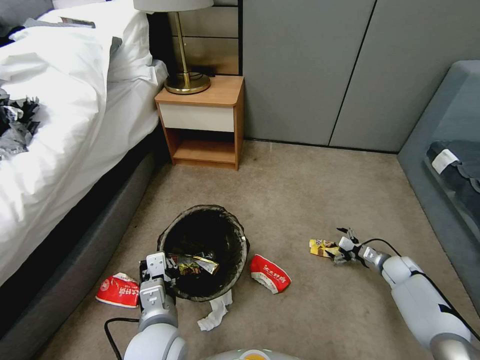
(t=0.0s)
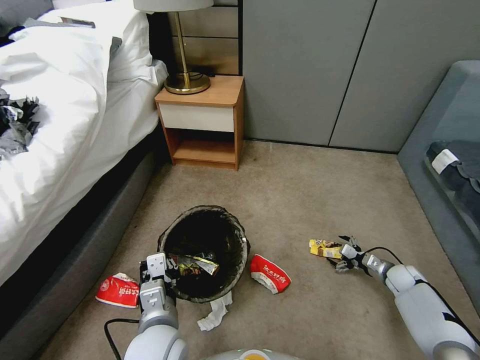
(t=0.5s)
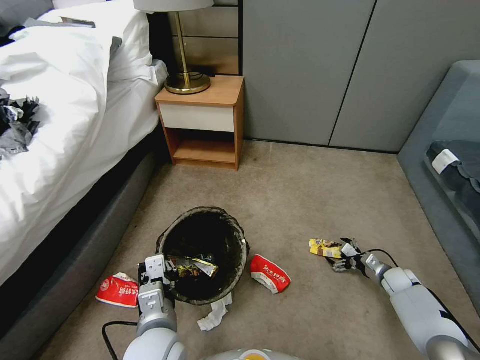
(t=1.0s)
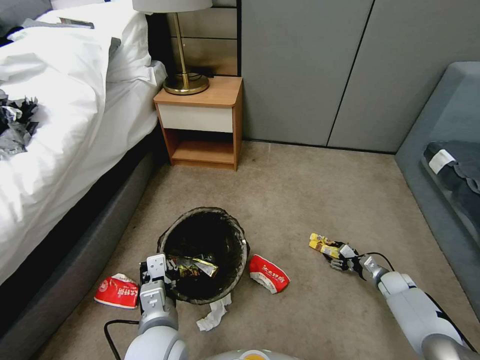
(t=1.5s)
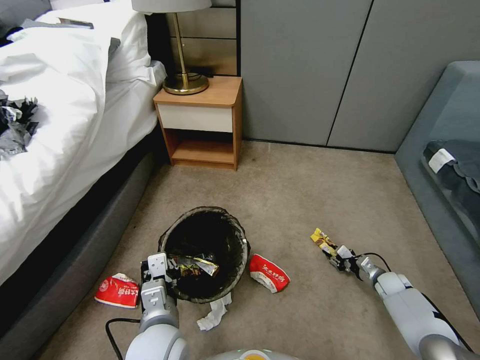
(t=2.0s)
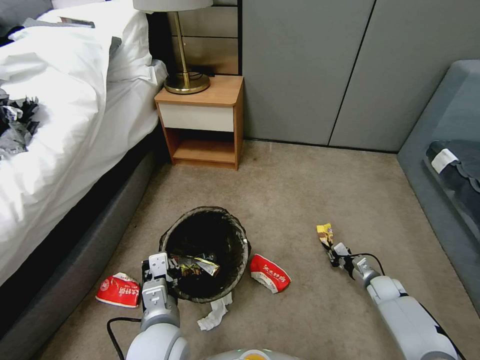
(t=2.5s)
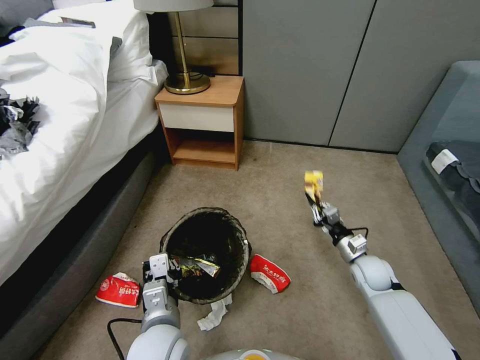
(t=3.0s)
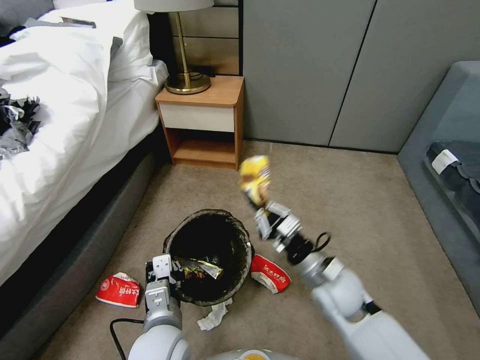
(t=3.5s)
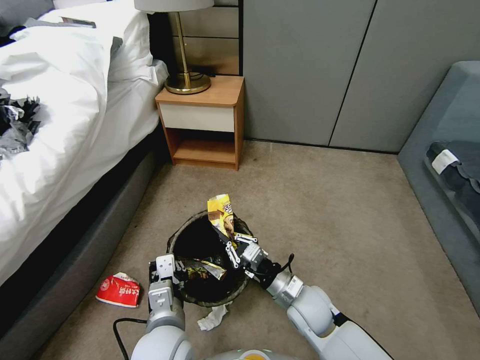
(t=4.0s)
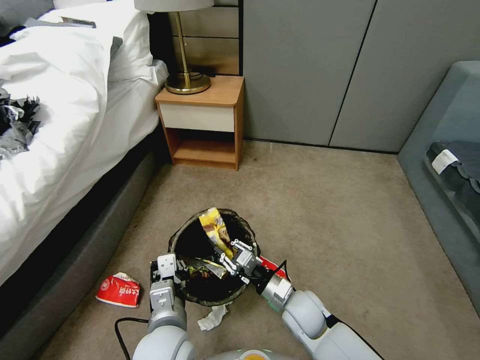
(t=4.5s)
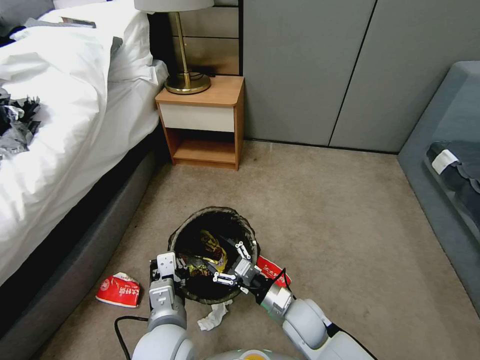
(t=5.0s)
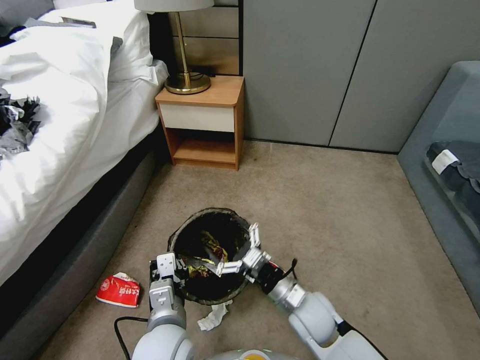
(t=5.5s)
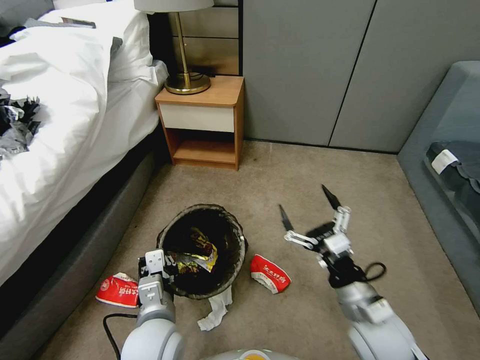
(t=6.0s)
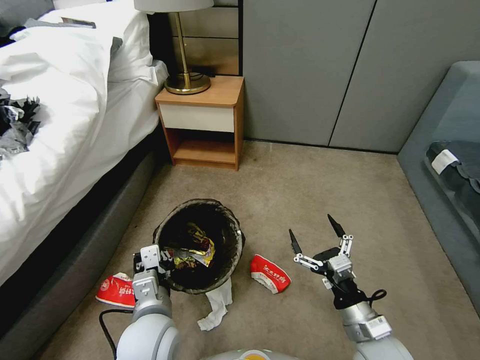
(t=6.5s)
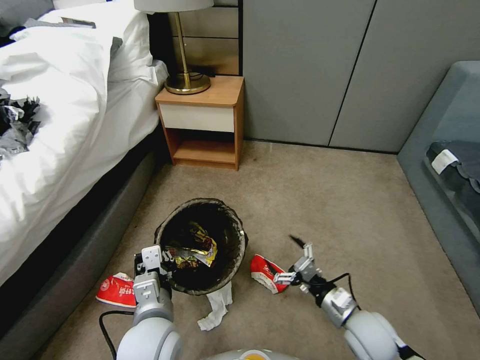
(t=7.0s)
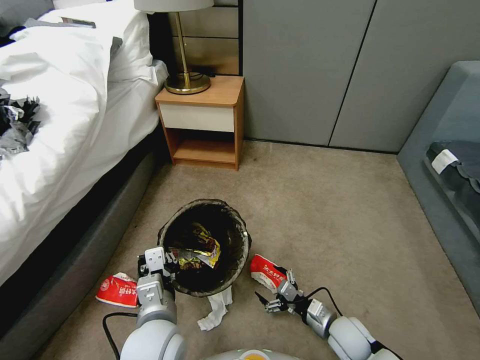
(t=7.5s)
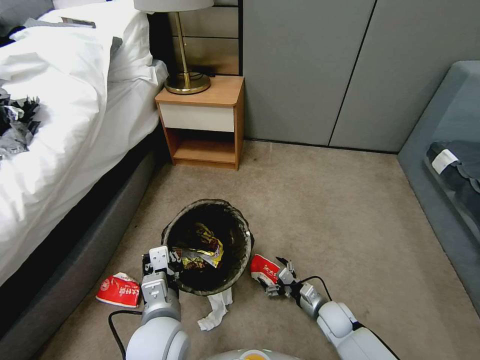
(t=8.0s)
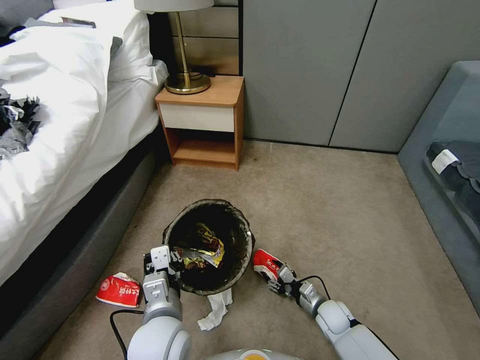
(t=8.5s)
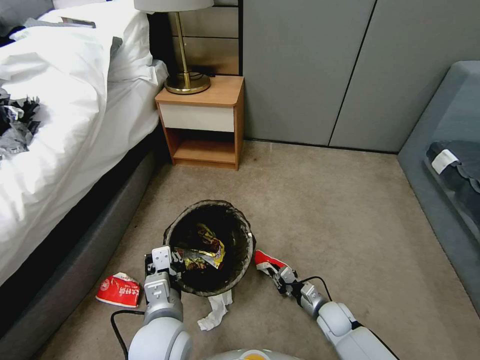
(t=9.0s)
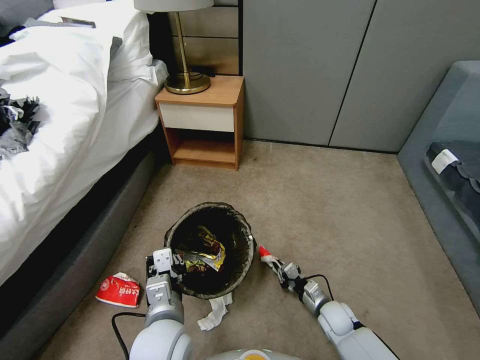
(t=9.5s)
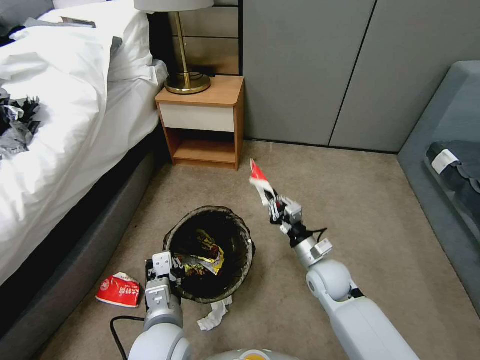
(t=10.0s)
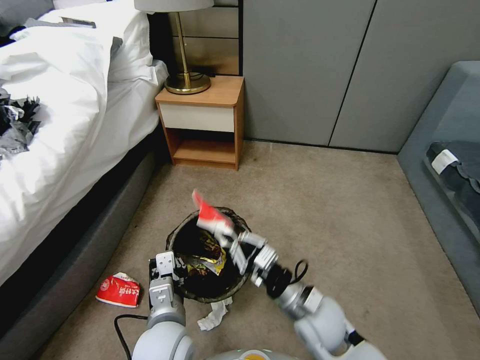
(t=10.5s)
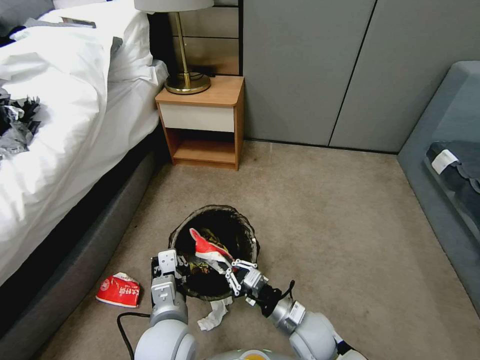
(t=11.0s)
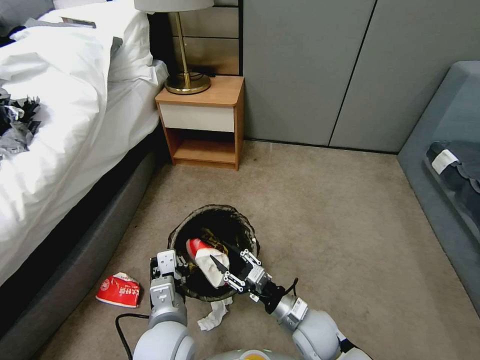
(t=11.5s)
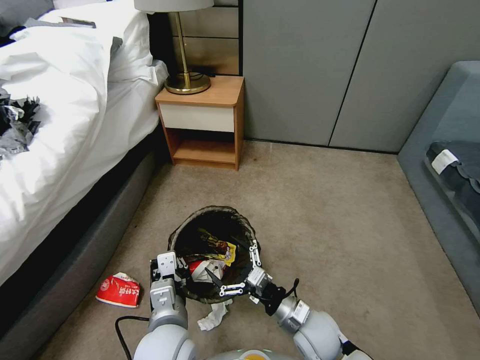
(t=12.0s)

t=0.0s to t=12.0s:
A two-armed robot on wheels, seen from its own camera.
Task of the whole recording: Pick up the trash bin, then pick up the garbage from the floor and place it into the trash bin.
t=0.0s to t=2.0s: The right gripper shifts about 5 cm downward, and closes.
t=2.0s to t=4.0s: The right gripper heads to the left and upward, covering approximately 35 cm.
t=4.0s to t=6.0s: The right gripper goes some 15 cm to the right, upward and backward, and opens its fingers.
t=6.0s to t=8.0s: The right gripper goes roughly 25 cm downward.
t=8.0s to t=10.0s: The right gripper travels upward and forward by about 15 cm, and closes up.
t=10.0s to t=12.0s: The right gripper travels backward and to the left by some 10 cm, and opens.

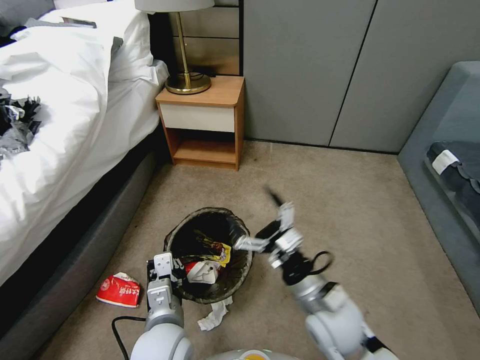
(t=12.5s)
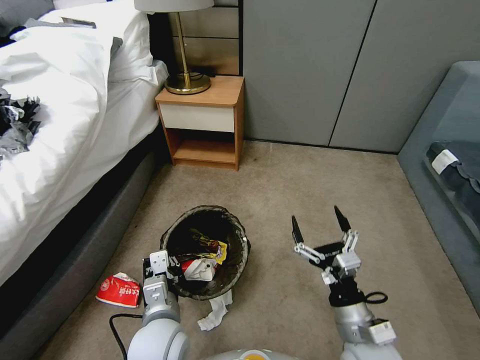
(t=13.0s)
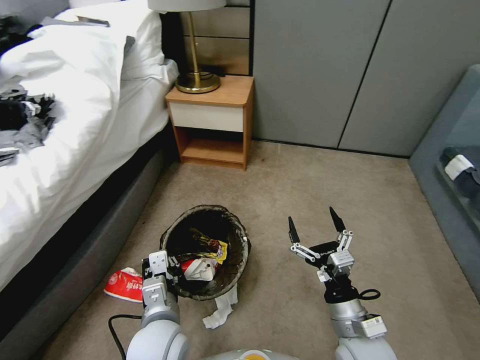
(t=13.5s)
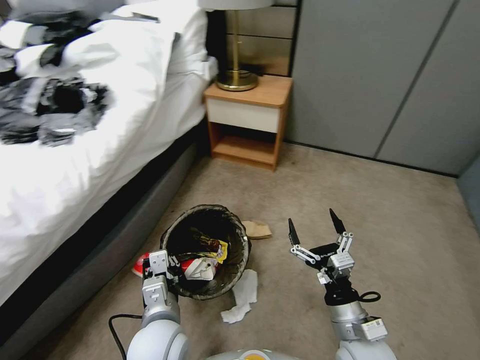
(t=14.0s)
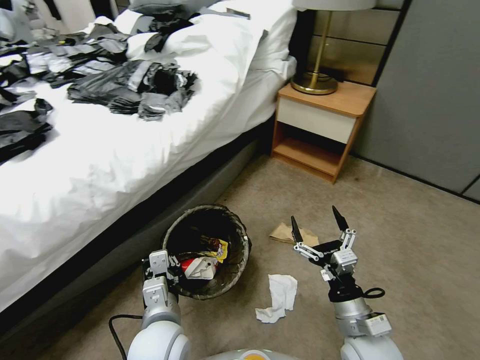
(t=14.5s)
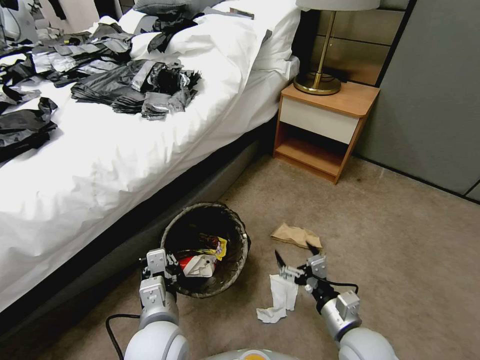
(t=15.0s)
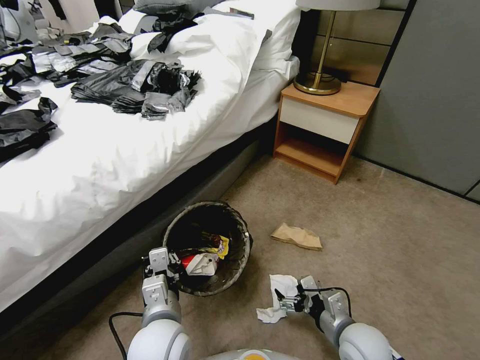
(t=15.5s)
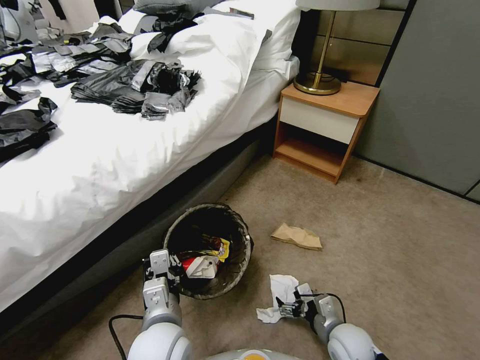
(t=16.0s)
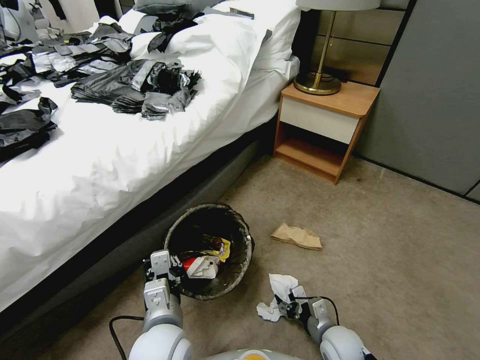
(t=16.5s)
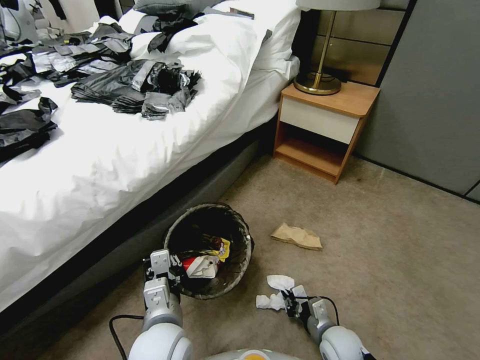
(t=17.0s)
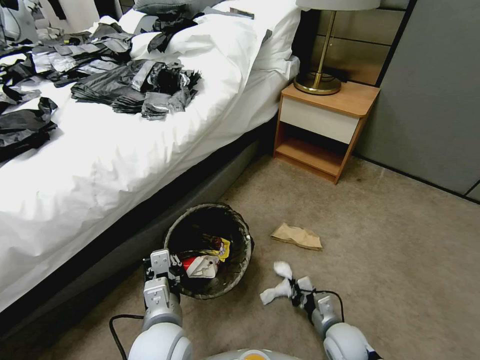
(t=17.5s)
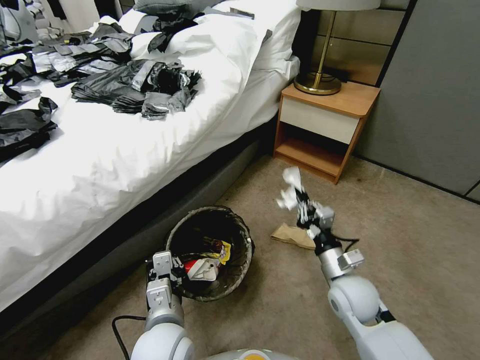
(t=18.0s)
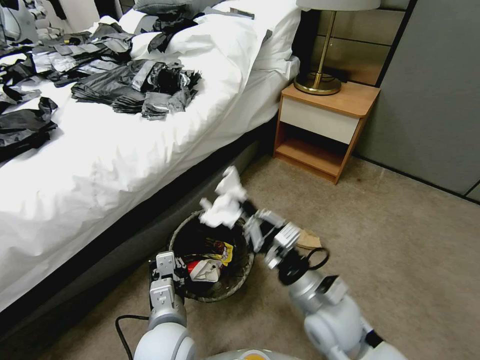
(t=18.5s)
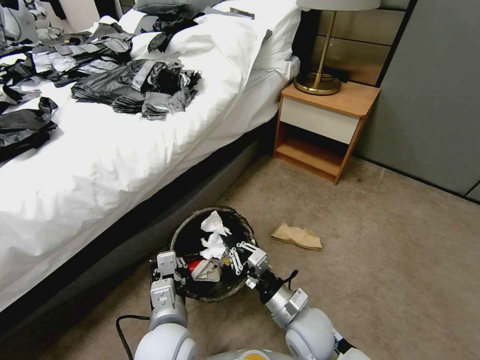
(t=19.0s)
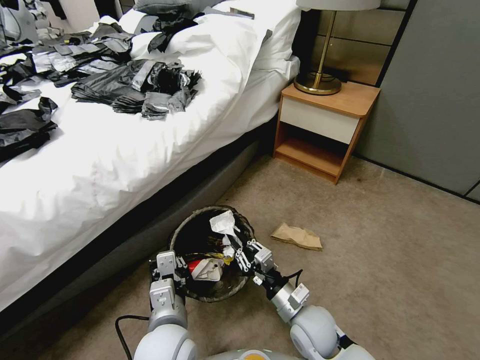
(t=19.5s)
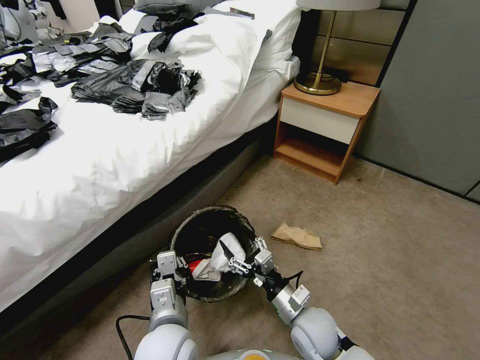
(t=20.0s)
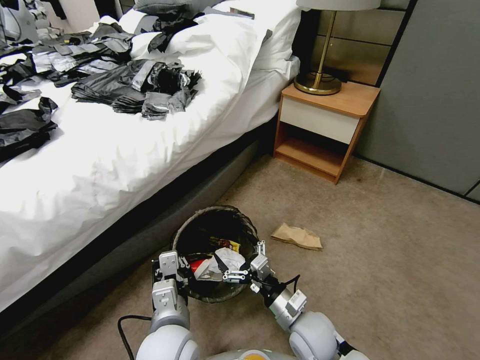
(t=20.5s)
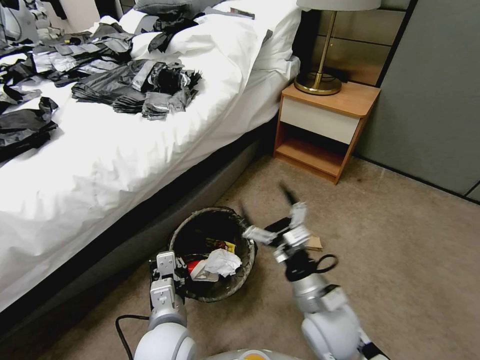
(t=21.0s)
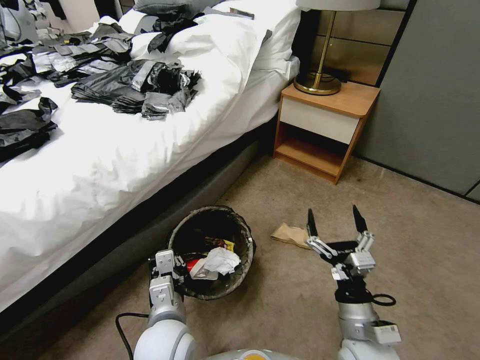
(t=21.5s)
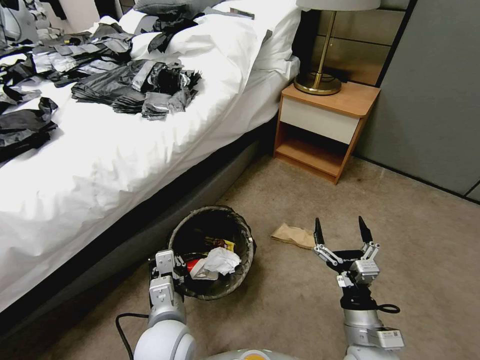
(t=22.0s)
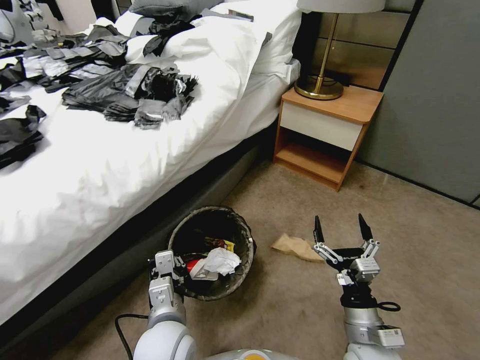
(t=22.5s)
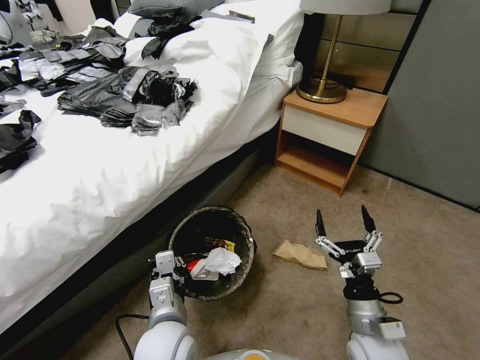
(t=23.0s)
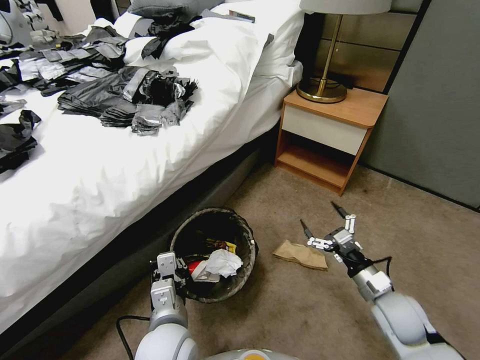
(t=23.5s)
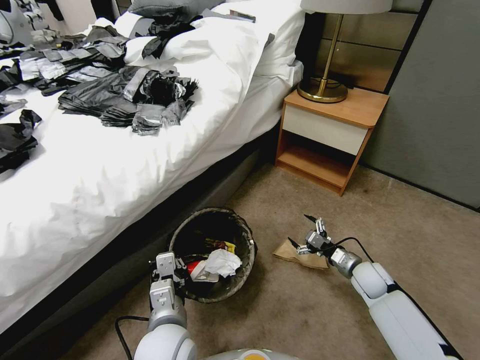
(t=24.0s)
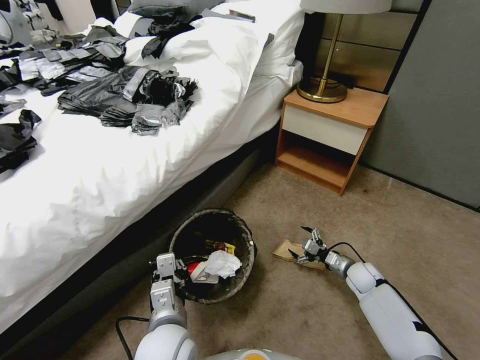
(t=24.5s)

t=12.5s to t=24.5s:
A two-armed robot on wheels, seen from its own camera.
Task of the whole recording: Pick up the trash bin, then pick up the garbage from the floor and place it into the trash bin.
t=12.5s to t=14.5s: The right gripper shifts some 10 cm to the right and backward.
t=14.5s to t=16.5s: The right gripper travels downward by approximately 15 cm, and closes up.
t=16.5s to t=18.5s: The right gripper heads upward and to the left, covering approximately 25 cm, and closes its fingers.
t=18.5s to t=20.5s: The right gripper heads downward, covering some 10 cm, and opens.
t=20.5s to t=22.5s: The right gripper heads to the right and backward, covering approximately 10 cm.
t=22.5s to t=24.5s: The right gripper moves forward, downward and to the right, roughly 30 cm.

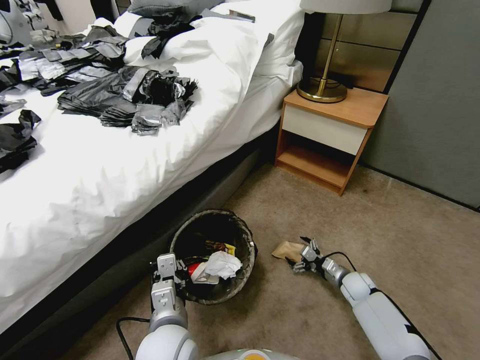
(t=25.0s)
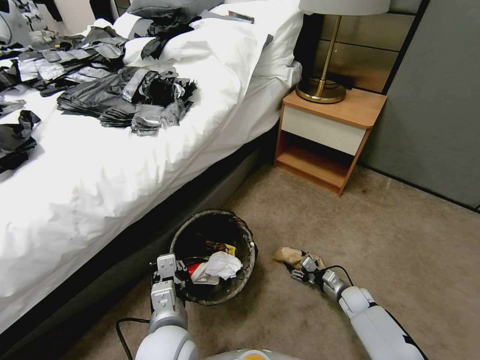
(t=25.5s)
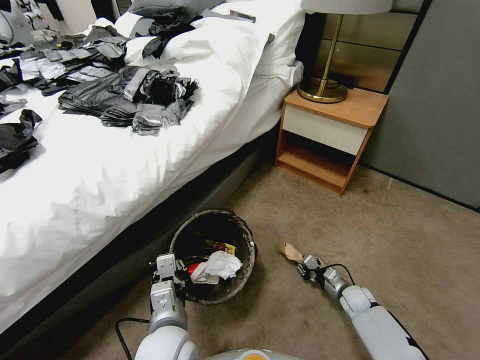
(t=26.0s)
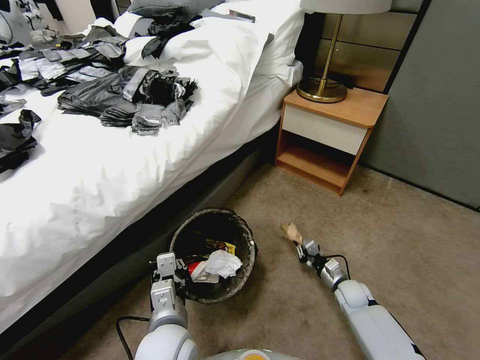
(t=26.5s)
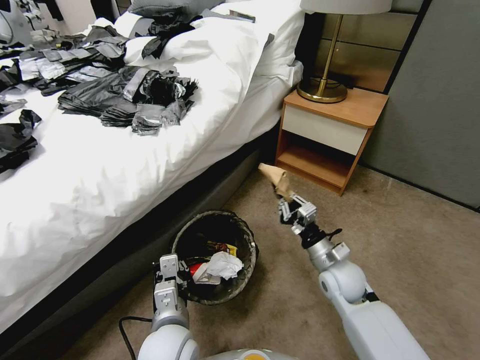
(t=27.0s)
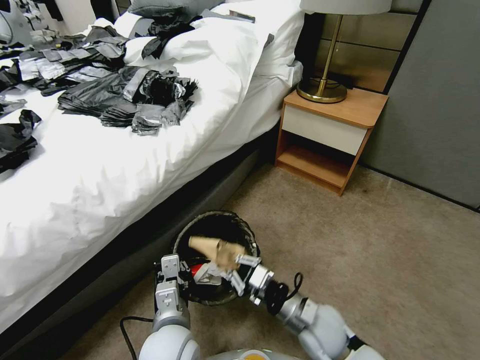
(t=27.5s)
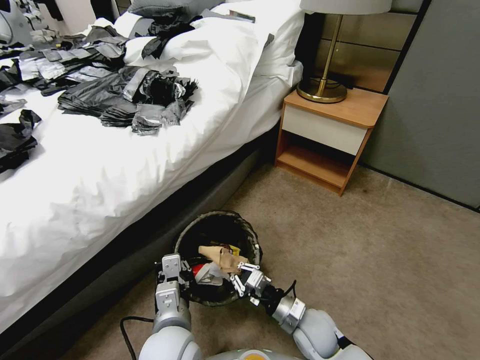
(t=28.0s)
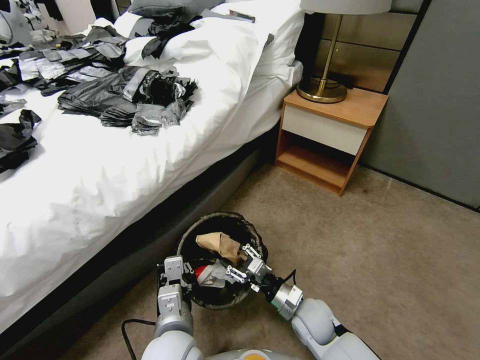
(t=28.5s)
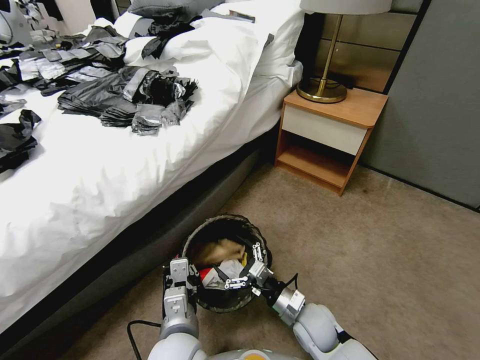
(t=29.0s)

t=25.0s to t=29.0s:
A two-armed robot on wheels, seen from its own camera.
Task of the whole recording: Pick up the trash bin, then pick up the garbage from the floor and place it into the trash bin.
t=25.0s to t=27.0s: The right gripper is displaced upward and to the left by roughly 20 cm, and closes its fingers.
t=27.0s to t=29.0s: The right gripper moves backward, downward and to the left, about 15 cm, and opens up.
